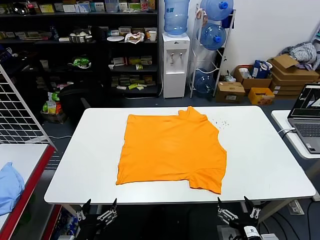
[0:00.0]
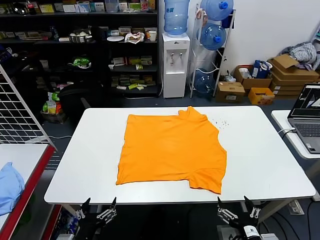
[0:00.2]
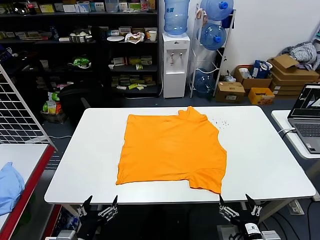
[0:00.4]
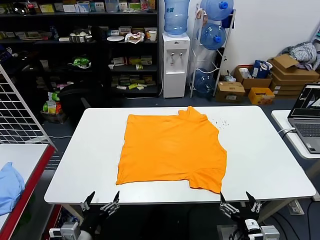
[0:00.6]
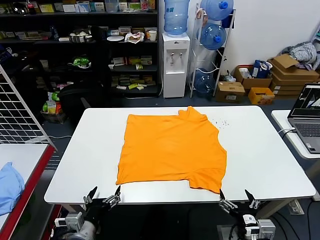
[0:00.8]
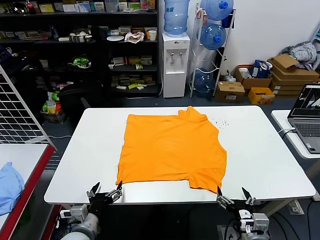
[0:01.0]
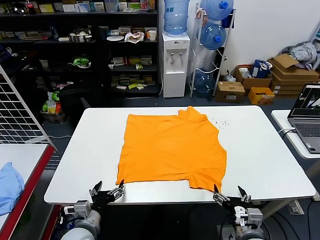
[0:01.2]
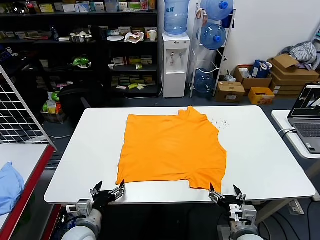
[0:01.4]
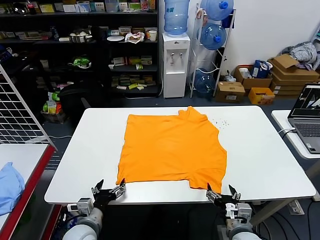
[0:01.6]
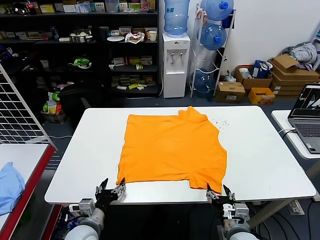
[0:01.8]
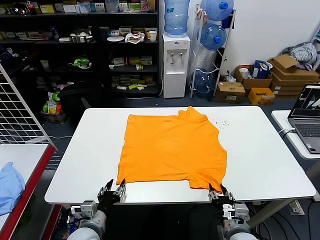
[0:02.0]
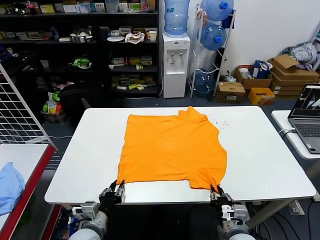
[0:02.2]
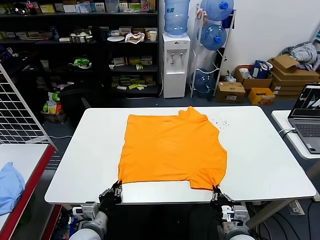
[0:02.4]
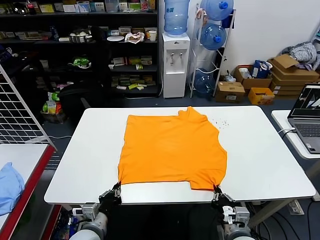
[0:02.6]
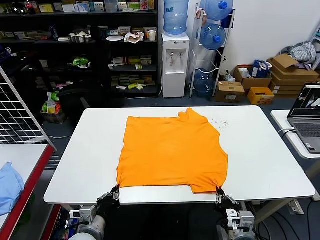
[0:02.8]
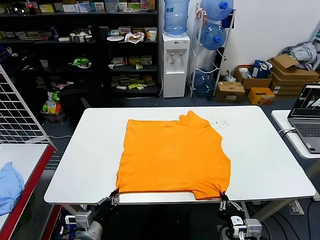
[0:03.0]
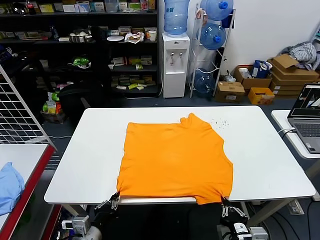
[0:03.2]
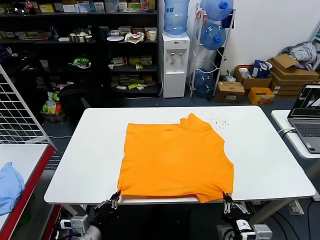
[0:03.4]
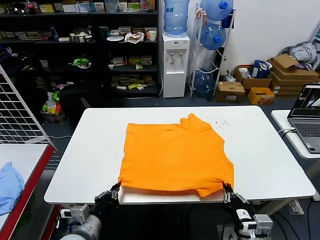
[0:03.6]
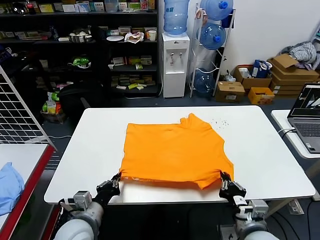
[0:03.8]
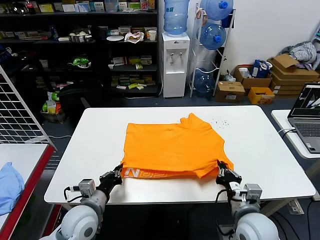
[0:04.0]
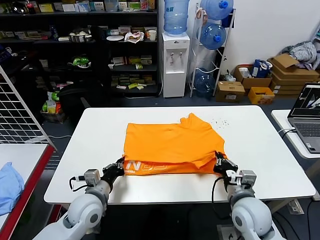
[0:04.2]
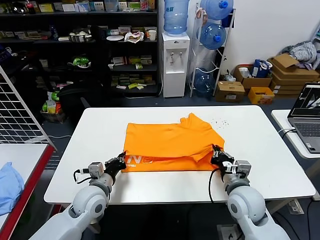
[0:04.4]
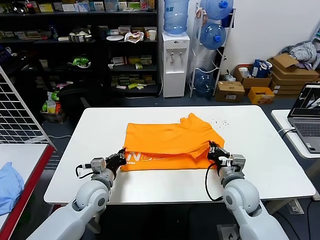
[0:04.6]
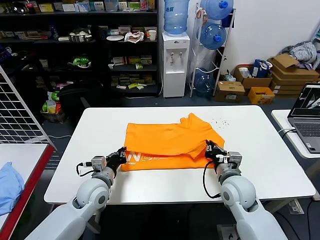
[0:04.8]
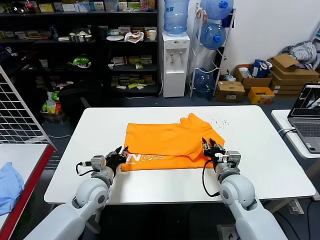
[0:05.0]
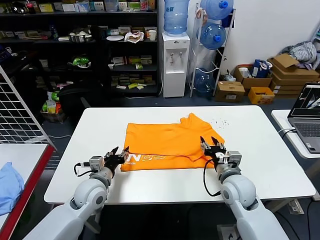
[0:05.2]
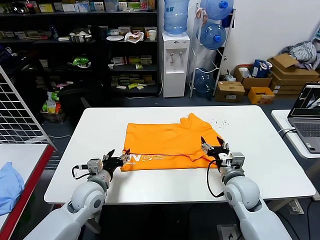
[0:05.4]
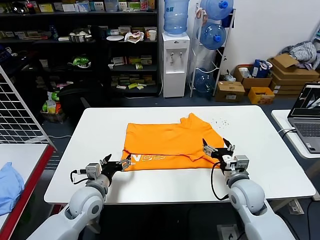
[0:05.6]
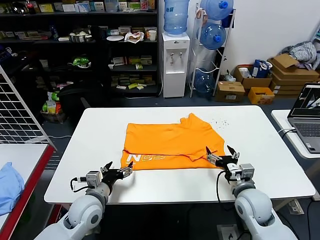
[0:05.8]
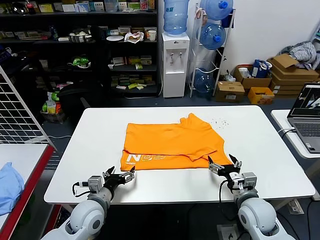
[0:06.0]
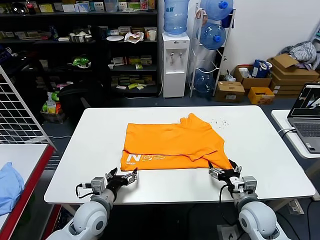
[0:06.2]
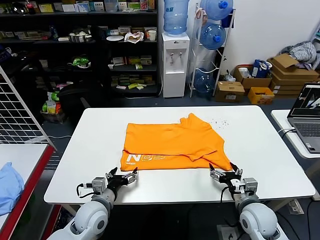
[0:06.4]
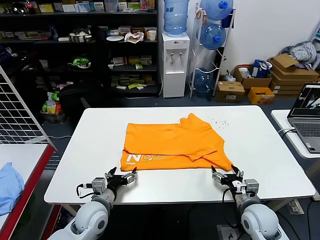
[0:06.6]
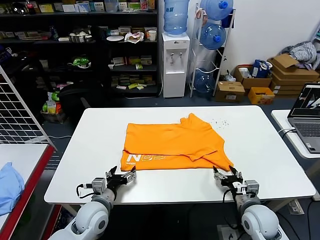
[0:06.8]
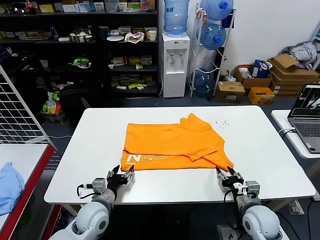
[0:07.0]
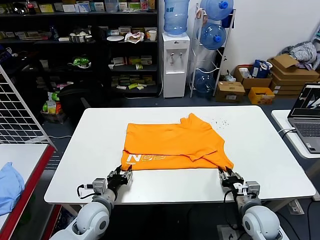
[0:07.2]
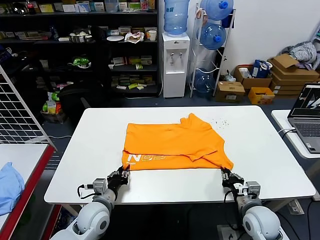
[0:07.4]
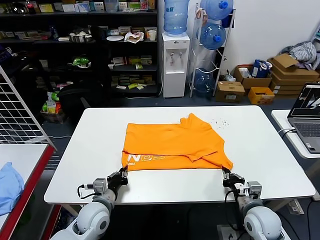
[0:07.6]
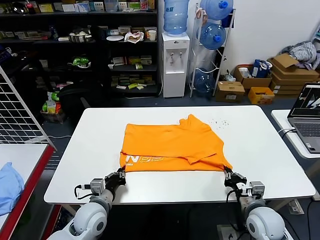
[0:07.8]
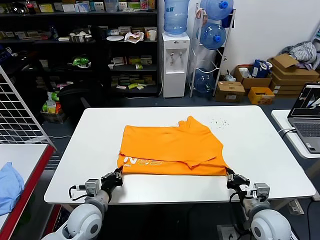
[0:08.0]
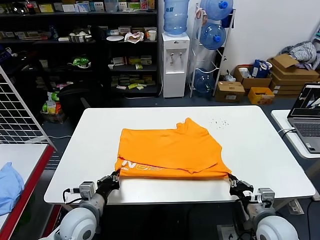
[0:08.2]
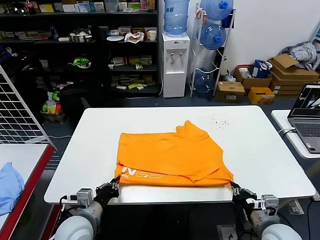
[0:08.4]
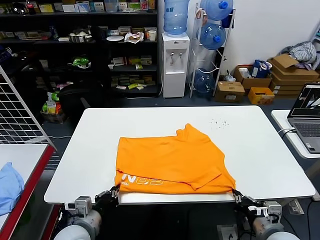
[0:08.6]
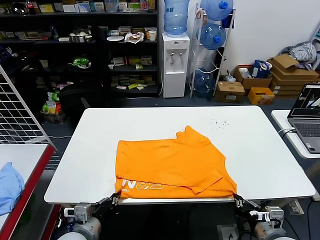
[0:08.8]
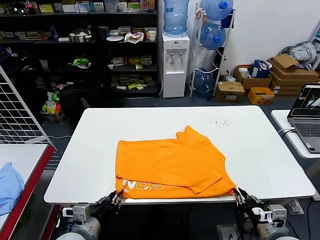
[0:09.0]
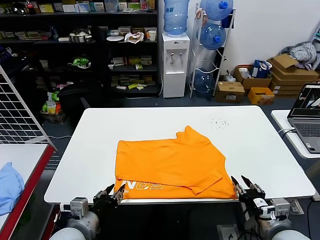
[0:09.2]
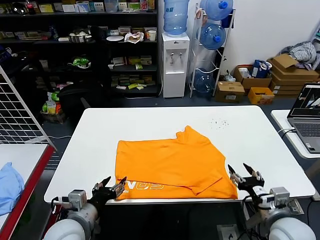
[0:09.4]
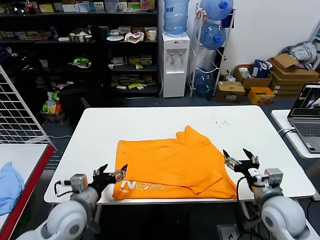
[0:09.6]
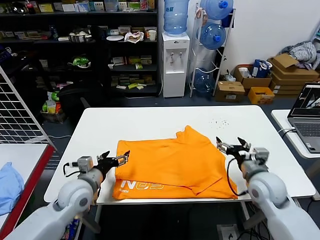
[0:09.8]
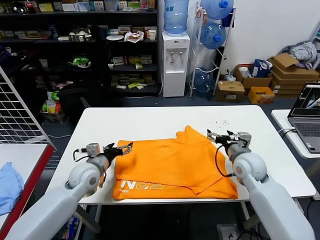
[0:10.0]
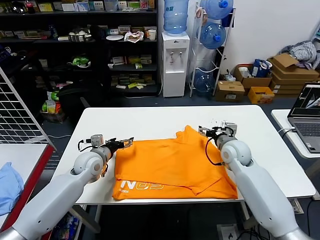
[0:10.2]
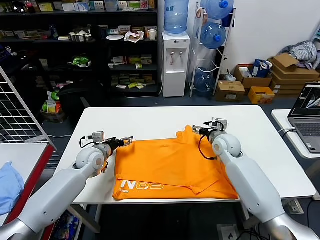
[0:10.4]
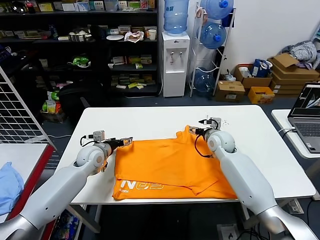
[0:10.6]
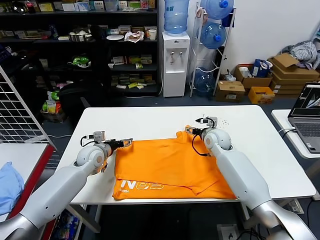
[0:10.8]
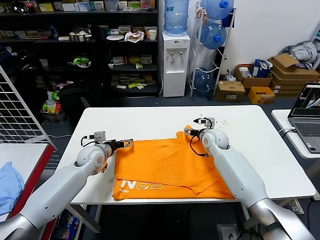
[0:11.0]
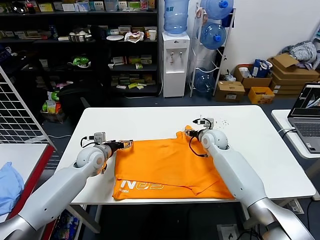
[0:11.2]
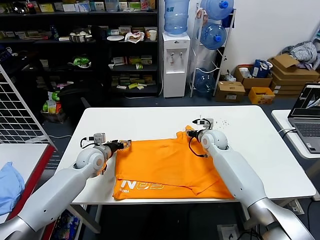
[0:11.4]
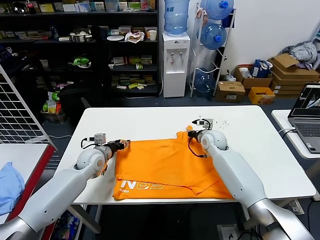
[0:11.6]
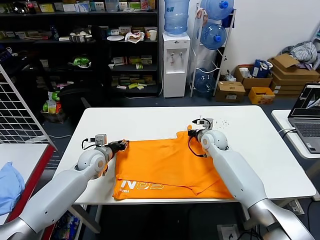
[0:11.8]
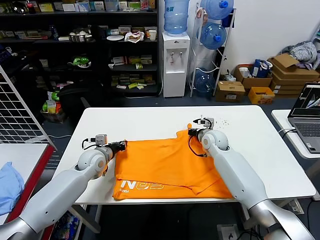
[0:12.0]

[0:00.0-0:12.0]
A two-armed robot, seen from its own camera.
Task of the whole recording: fold and organize the clothes.
Step, 0.0 to 2.6 s: use both grippers simultaneously to clamp the lower edge of the clothing fabric.
Step, 2.8 to 5.0 s: use both grippers to drag the lower edge of the fabric forward and fold it over the upper edge.
Step, 5.2 to 9.0 s: Drag the clothes downward with both gripper.
Step, 9.2 to 12.0 s: use both grippers simultaneously to clamp the upper edge of the clothing fabric.
1.6 to 3.0 s: The right gripper goes approximately 5 cm backward, and closes, while the left gripper moves roughly 5 cm, and closes its fingers.
3.0 to 4.4 s: Both grippers move forward, some 15 cm.
4.4 to 6.0 s: The right gripper goes about 5 cm downward, and opens its fingers; the left gripper opens up.
6.0 to 7.6 s: The right gripper closes its fingers; the left gripper closes.
7.6 to 9.0 s: The two grippers go approximately 10 cm backward and upward.
9.0 to 10.4 s: The two grippers go roughly 30 cm forward. The right gripper opens its fingers, while the left gripper opens.
10.4 to 12.0 s: The left gripper closes its fingers. The right gripper closes.

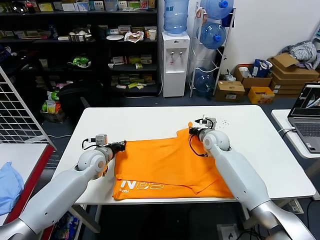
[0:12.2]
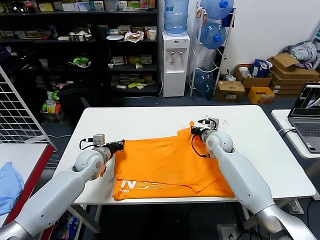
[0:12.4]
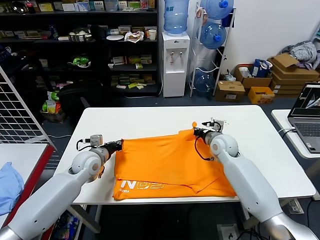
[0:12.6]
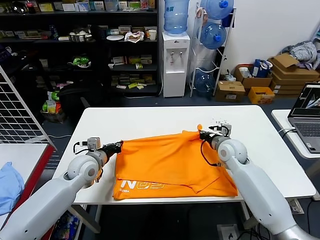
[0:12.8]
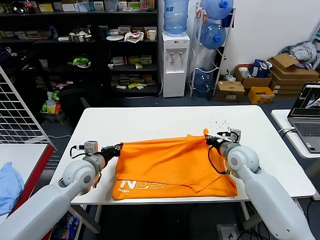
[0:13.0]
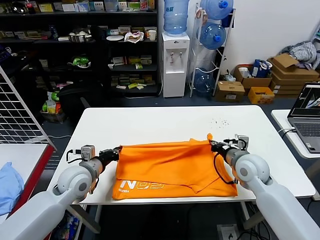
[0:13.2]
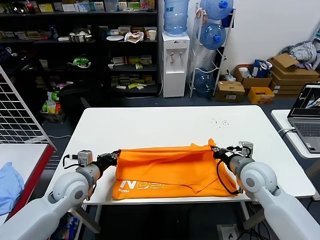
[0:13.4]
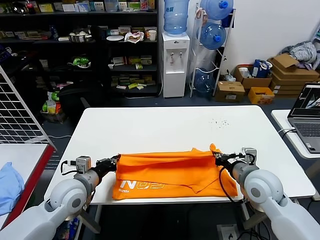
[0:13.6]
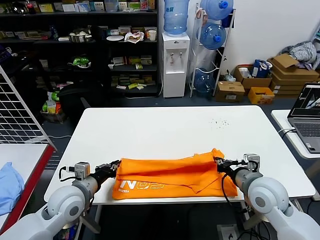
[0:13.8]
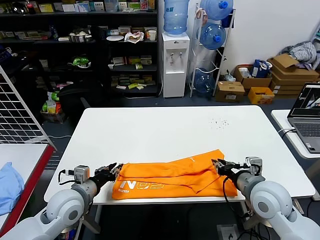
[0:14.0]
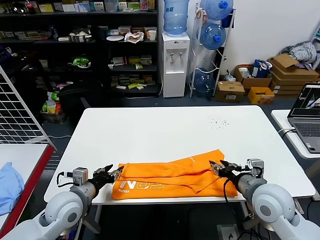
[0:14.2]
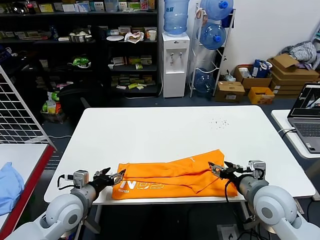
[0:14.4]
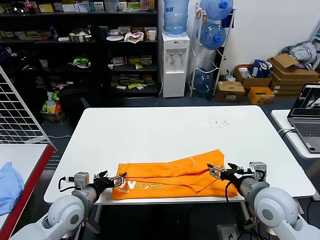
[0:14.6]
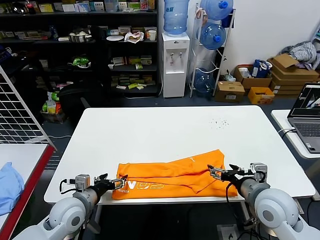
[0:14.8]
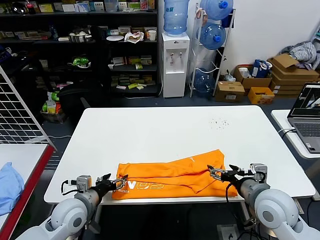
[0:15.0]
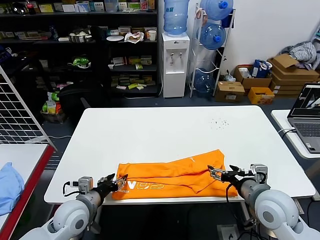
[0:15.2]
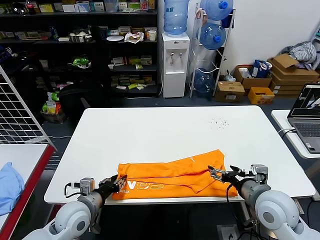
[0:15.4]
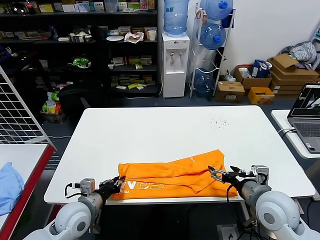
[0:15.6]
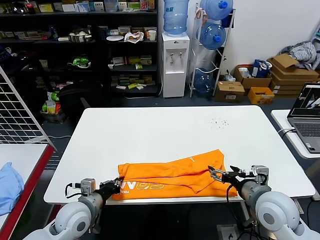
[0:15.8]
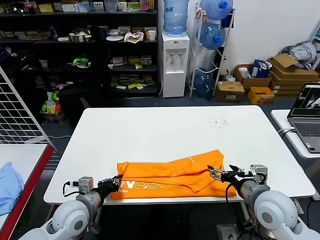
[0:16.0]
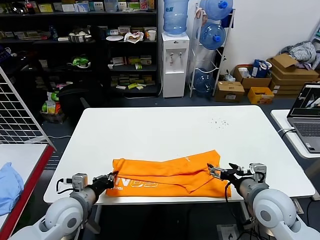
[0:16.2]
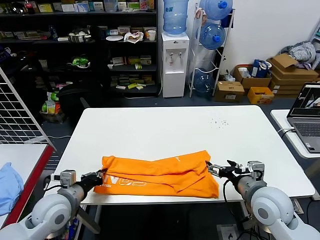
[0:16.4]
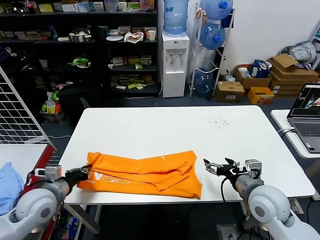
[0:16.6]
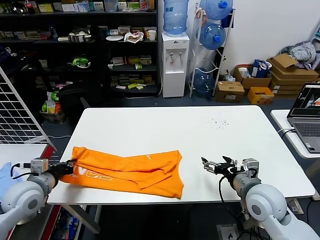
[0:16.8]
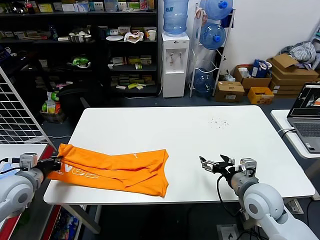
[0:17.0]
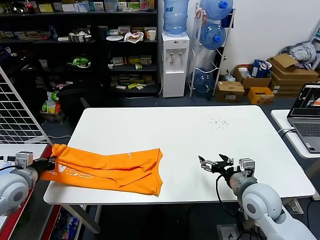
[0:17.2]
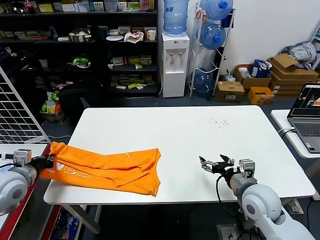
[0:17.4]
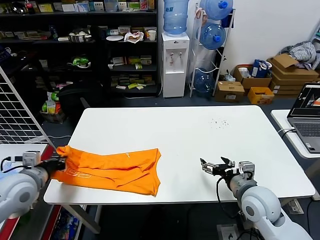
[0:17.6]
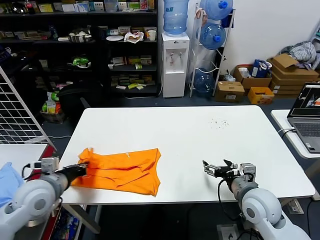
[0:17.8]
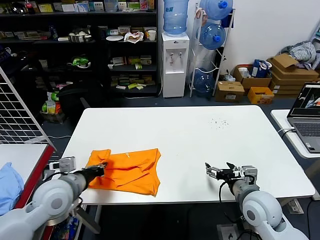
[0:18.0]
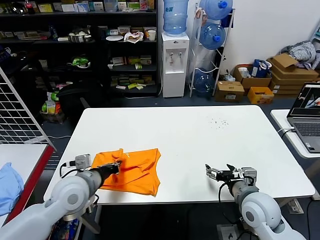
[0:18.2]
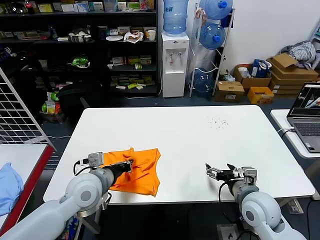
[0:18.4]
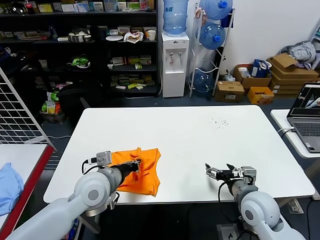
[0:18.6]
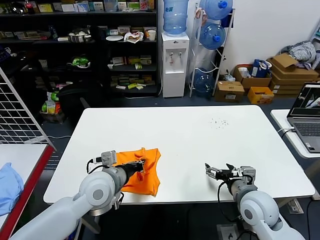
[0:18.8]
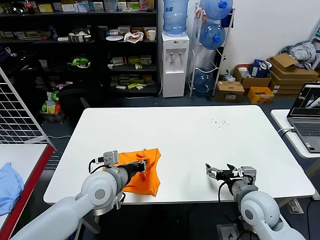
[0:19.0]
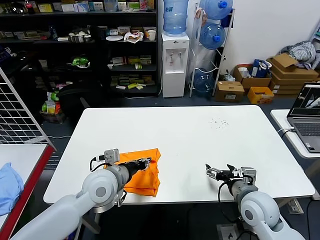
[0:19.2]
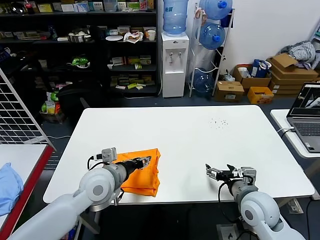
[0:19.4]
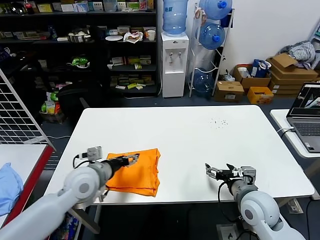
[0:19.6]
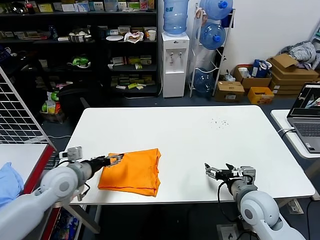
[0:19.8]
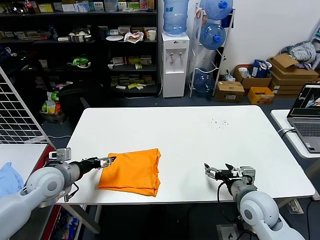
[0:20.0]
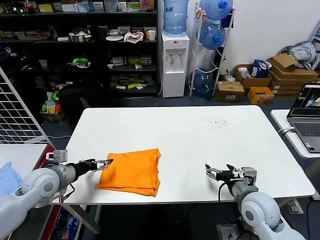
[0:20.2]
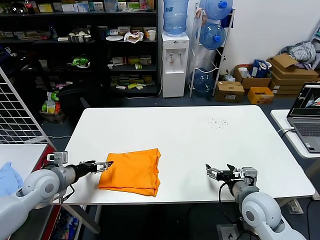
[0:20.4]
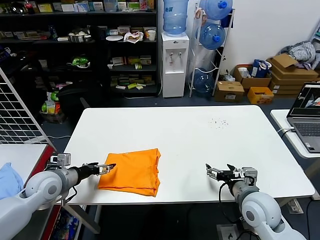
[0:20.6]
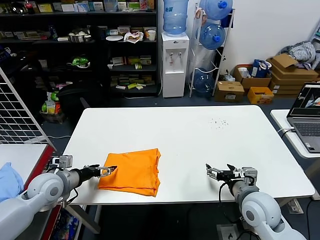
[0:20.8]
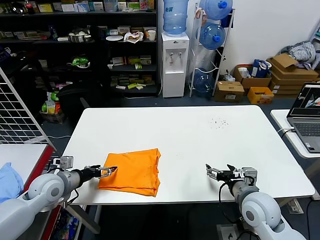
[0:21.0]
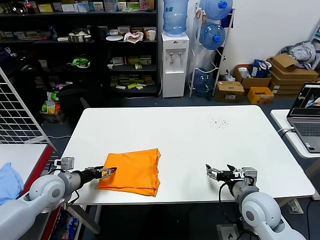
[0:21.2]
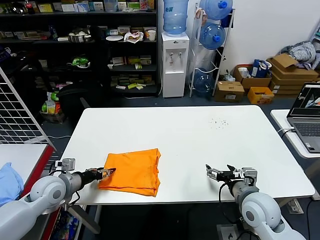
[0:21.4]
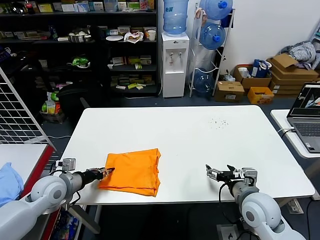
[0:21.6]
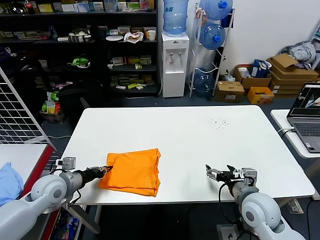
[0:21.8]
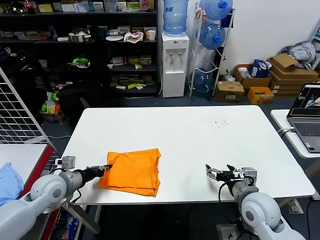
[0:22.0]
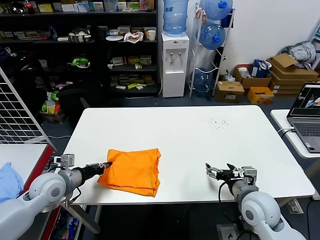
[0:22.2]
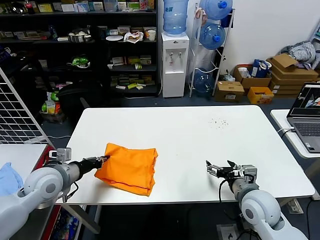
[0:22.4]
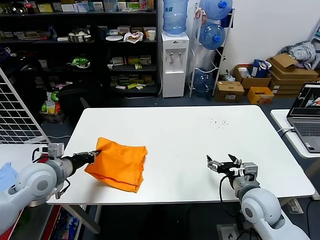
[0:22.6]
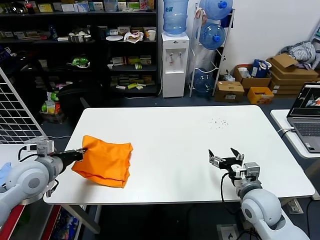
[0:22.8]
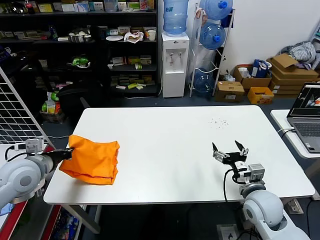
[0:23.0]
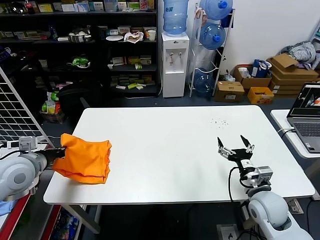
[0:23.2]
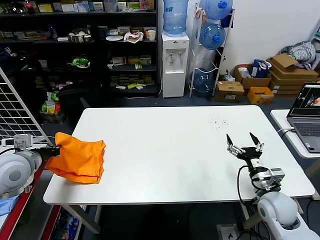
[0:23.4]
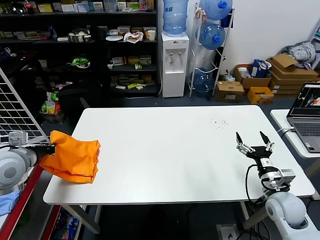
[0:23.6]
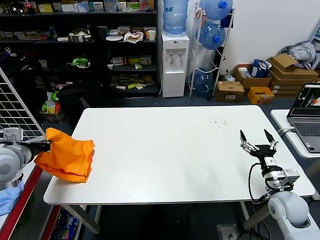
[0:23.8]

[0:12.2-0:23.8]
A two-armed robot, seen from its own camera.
Task of the whole recording: fold and organize the clothes.
Step, 12.2 to 13.8 s: use both grippers to drag the upper edge of the fabric backward and fold it over the lower edge.
Step, 14.0 to 15.6 s: use the left gripper to clamp the left edge of the fabric.
Step, 16.0 to 19.2 s: use the left gripper to drag the left edge of the fabric to the left and folds it over the right edge.
12.2 to 13.6 s: The right gripper moves backward, about 20 cm. The left gripper goes approximately 15 cm backward.
13.6 to 15.0 s: The left gripper ends up roughly 5 cm from where it was, and opens; the right gripper moves backward, some 5 cm, and opens its fingers.
15.0 to 16.6 s: The left gripper is displaced to the left and upward by approximately 10 cm, and closes.
16.6 to 18.0 s: The left gripper moves some 10 cm to the left and comes back.
18.0 to 19.4 s: The left gripper travels to the right by some 10 cm, and opens.
19.4 to 21.0 s: The left gripper is displaced to the left by about 20 cm, and opens its fingers.
21.0 to 22.4 s: The left gripper moves approximately 5 cm, and closes.
22.4 to 23.8 s: The left gripper travels upward and to the left by some 15 cm. The right gripper travels to the right by approximately 10 cm.
